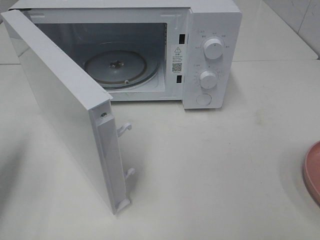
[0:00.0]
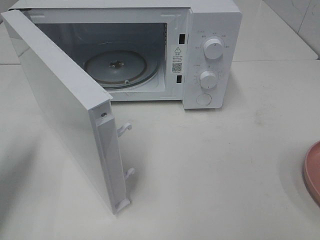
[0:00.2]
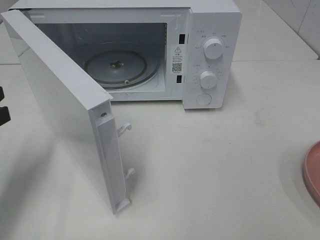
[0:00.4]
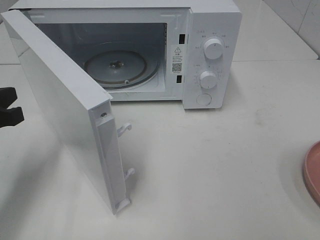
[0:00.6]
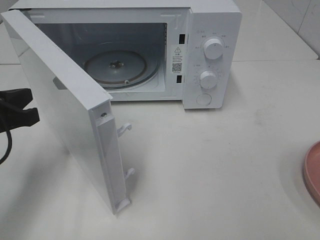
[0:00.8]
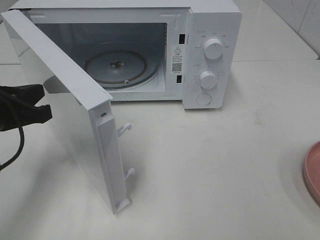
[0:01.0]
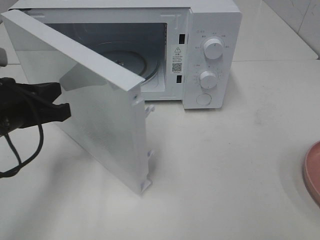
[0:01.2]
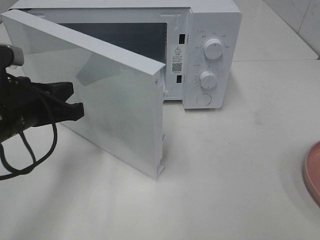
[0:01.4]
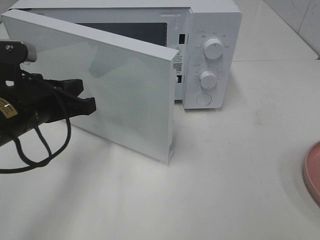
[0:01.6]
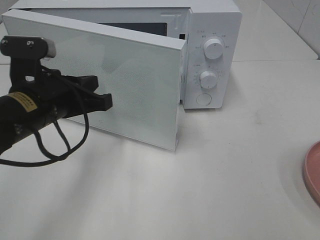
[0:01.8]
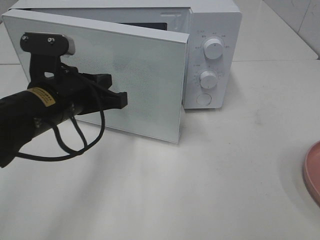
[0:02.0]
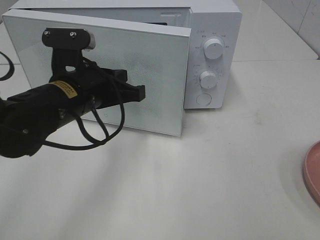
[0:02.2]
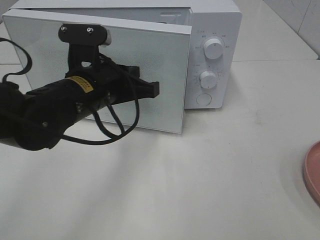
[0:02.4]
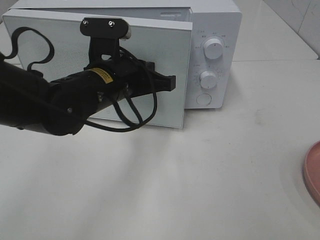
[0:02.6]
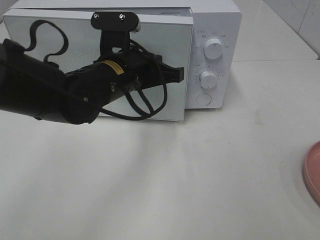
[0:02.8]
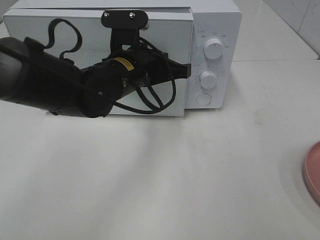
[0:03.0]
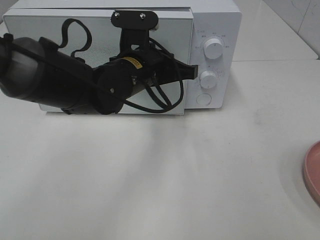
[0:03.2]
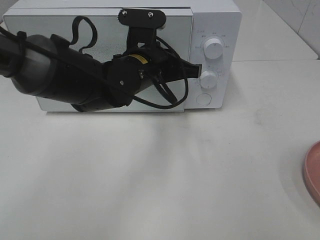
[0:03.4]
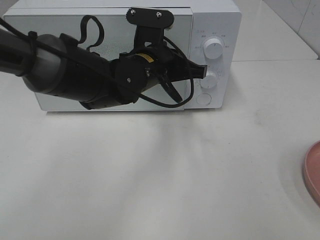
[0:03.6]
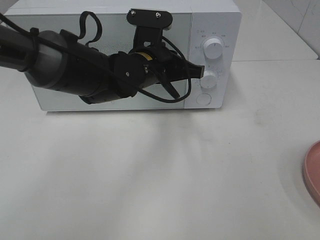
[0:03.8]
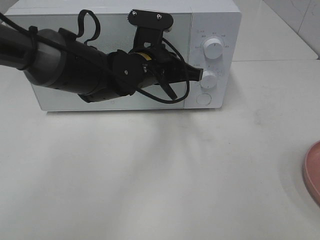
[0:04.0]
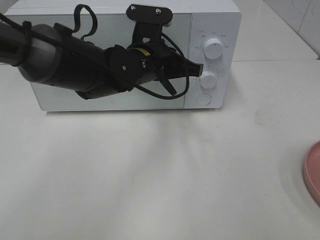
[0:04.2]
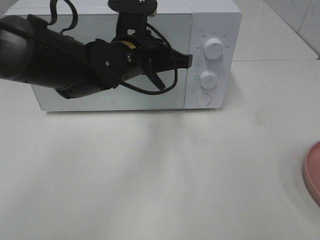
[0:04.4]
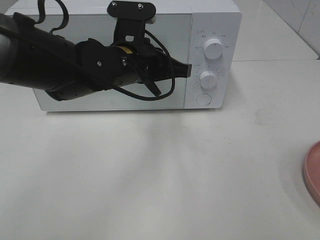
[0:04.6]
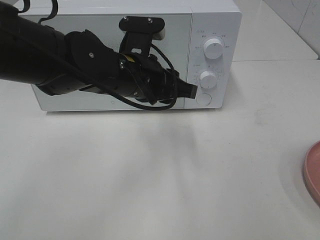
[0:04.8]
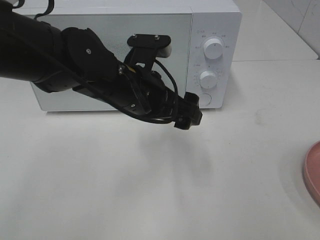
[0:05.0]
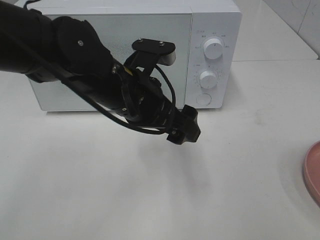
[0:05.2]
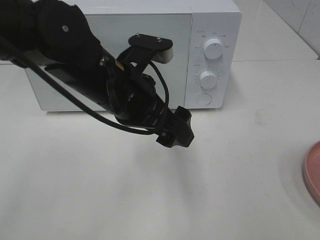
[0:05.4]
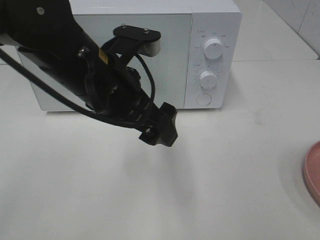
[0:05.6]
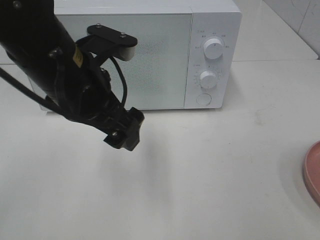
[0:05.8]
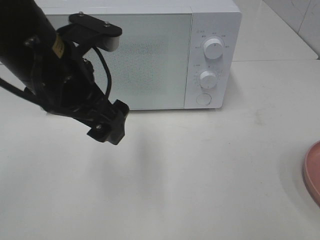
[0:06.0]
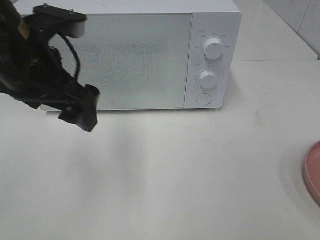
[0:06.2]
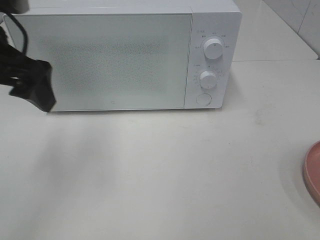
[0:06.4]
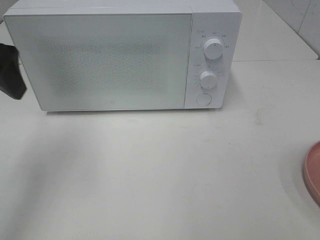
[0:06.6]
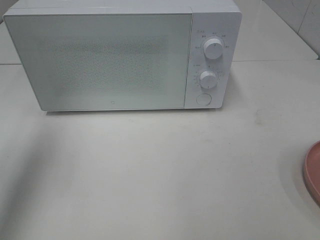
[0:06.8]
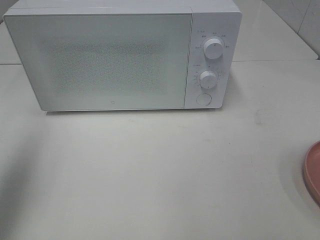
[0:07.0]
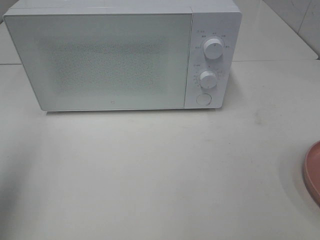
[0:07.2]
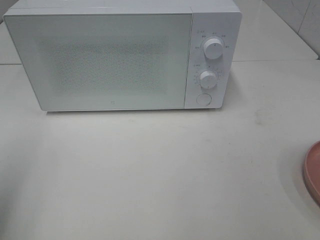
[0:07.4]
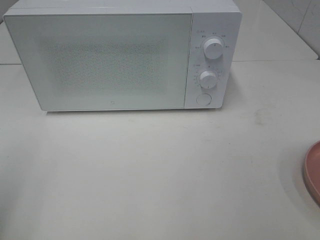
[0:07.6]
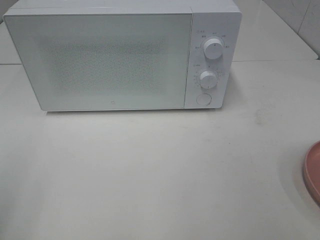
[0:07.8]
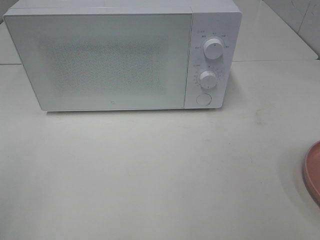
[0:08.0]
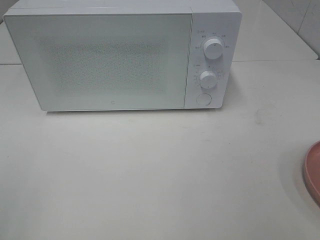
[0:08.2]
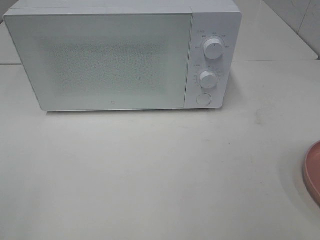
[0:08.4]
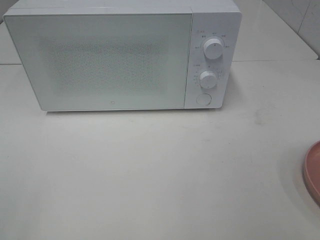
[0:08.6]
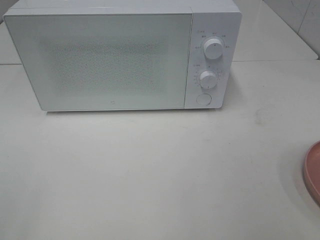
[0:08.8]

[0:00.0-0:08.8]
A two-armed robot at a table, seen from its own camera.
Task of the whole recording: Heat the burger.
Step, 0:00.0 to 0:04.4: Left hand: close the microwave door.
0:00.0 to 0:01.4: The left gripper is displaced to the right by about 15 cm.
0:01.4 to 0:03.0: The left gripper moves to the right and forward, roughly 20 cm.
0:03.0 to 0:04.4: There are only small adjustments of the grippers.
0:04.4 to 0:05.8: The left gripper shifts roughly 10 cm backward and to the left, and opens up.
0:05.8 to 0:07.4: The left gripper travels to the left and backward by about 25 cm.
0:07.4 to 0:08.8: The left gripper moves backward, about 10 cm.

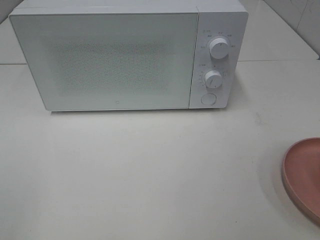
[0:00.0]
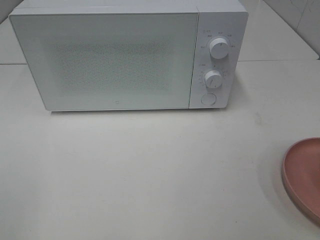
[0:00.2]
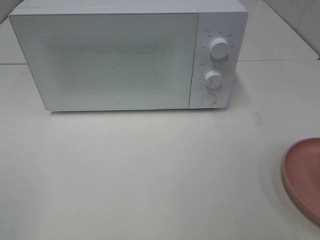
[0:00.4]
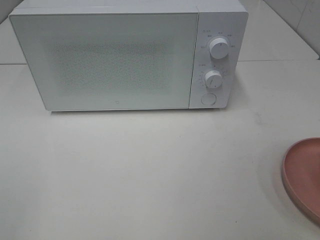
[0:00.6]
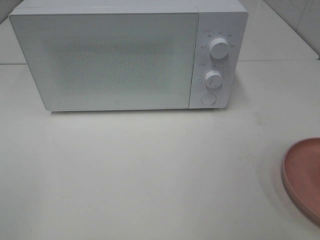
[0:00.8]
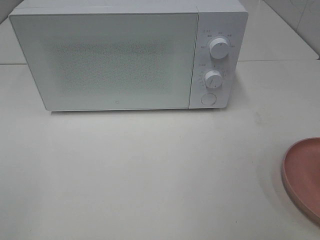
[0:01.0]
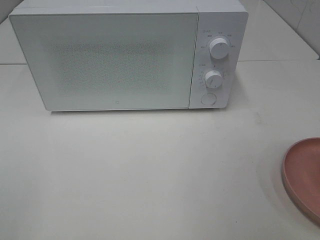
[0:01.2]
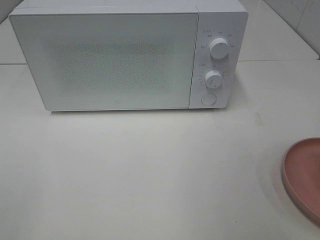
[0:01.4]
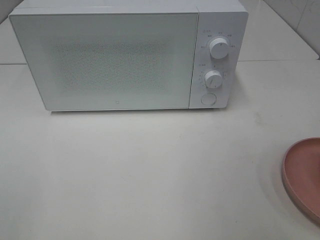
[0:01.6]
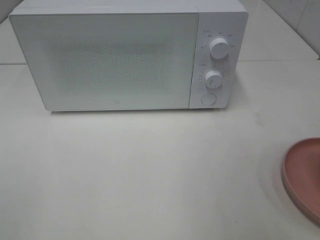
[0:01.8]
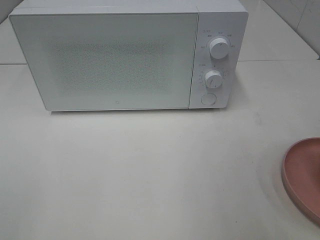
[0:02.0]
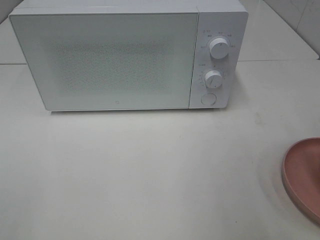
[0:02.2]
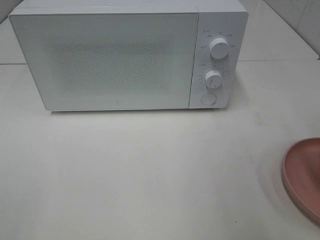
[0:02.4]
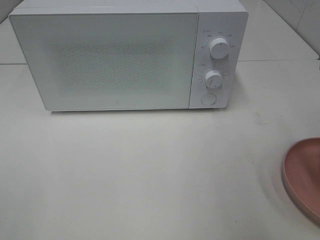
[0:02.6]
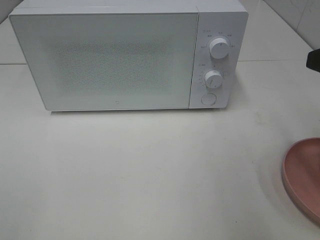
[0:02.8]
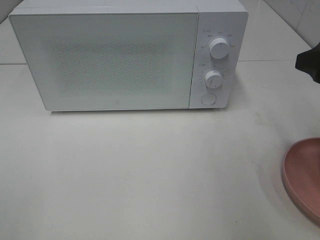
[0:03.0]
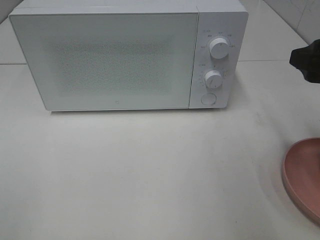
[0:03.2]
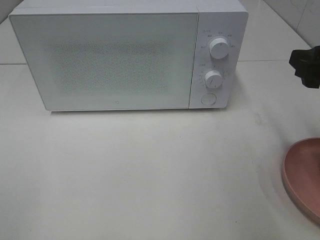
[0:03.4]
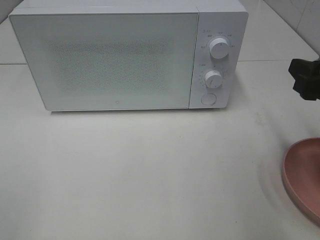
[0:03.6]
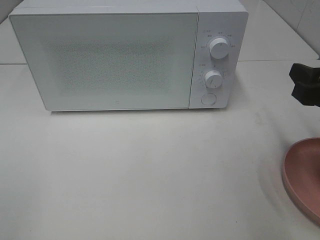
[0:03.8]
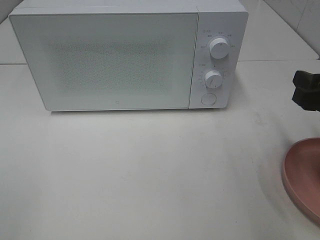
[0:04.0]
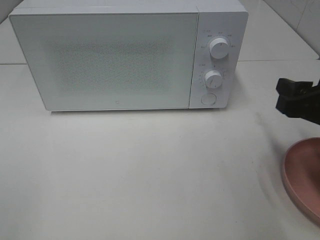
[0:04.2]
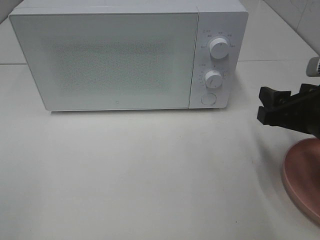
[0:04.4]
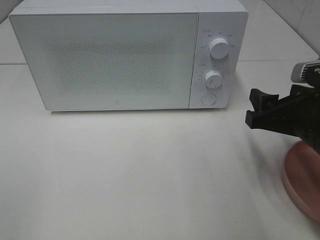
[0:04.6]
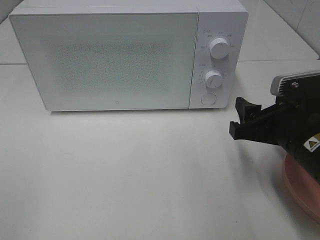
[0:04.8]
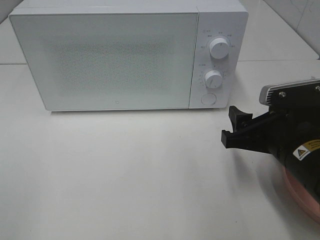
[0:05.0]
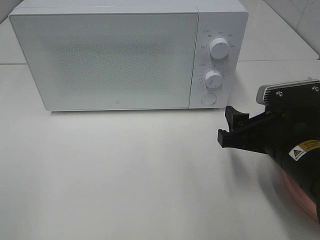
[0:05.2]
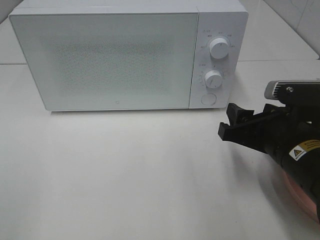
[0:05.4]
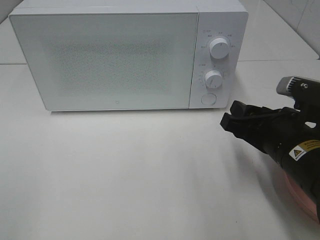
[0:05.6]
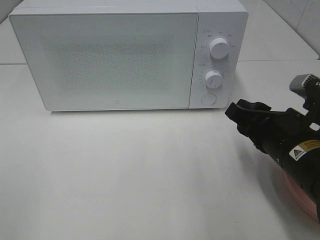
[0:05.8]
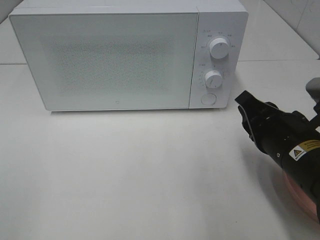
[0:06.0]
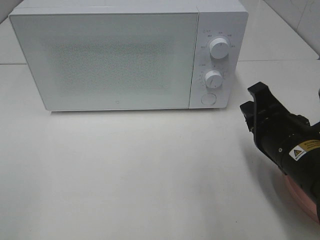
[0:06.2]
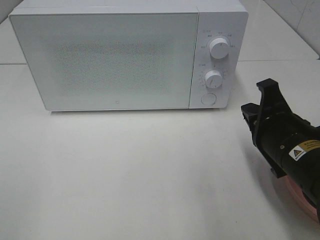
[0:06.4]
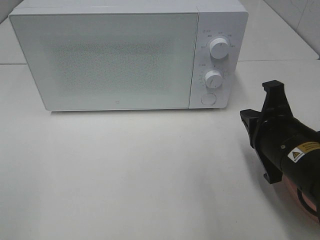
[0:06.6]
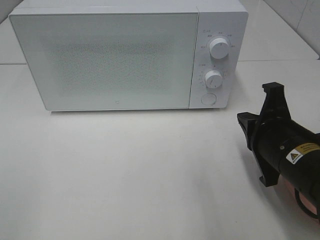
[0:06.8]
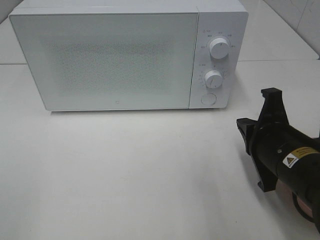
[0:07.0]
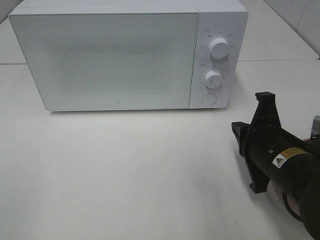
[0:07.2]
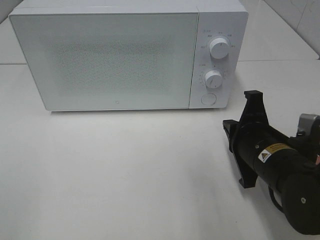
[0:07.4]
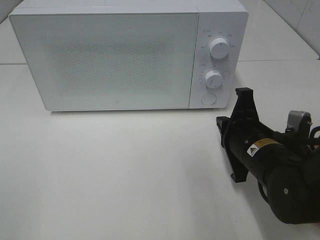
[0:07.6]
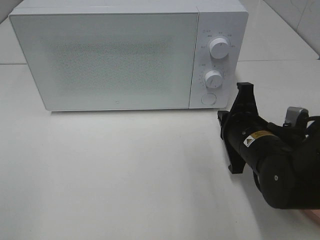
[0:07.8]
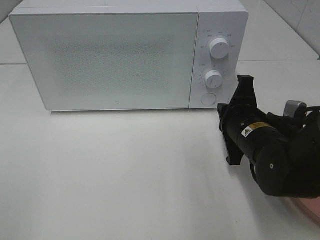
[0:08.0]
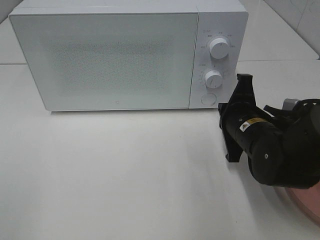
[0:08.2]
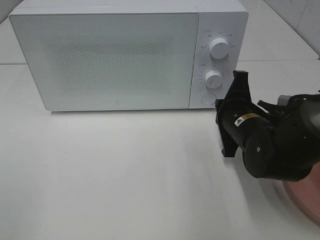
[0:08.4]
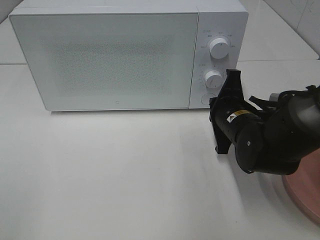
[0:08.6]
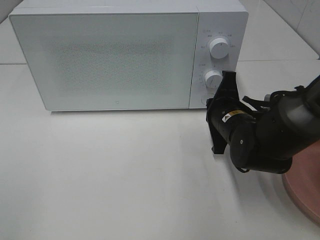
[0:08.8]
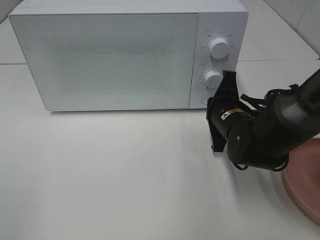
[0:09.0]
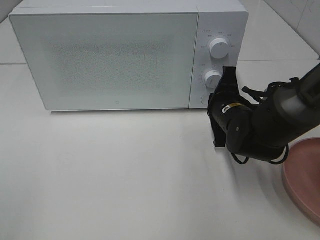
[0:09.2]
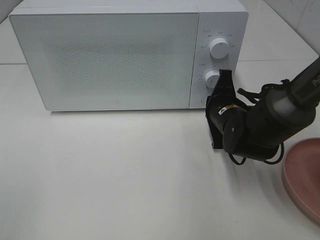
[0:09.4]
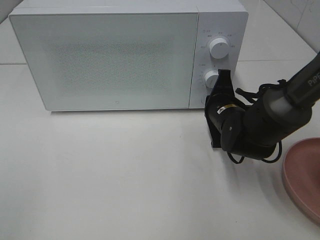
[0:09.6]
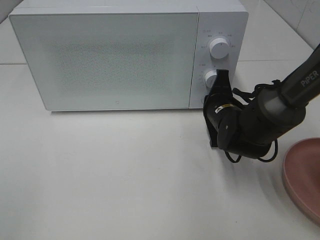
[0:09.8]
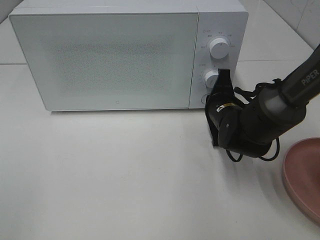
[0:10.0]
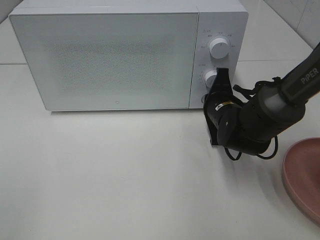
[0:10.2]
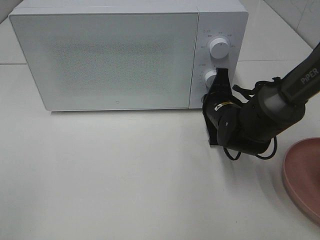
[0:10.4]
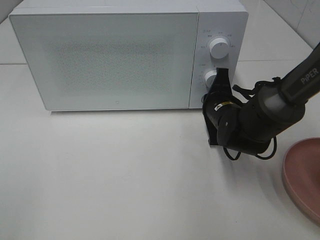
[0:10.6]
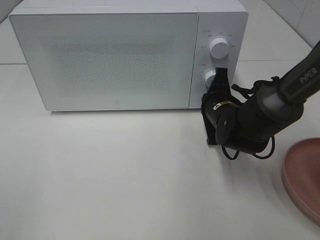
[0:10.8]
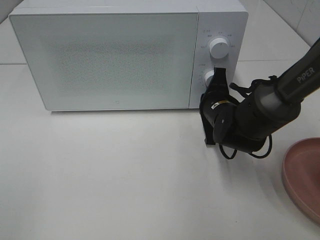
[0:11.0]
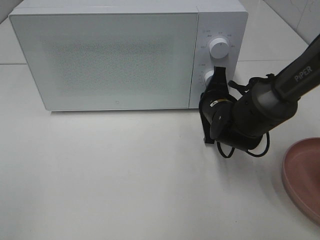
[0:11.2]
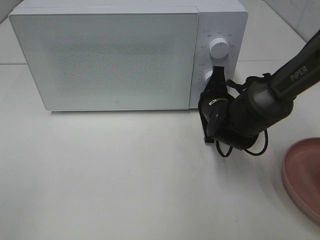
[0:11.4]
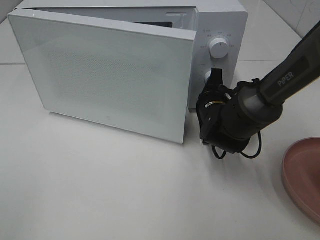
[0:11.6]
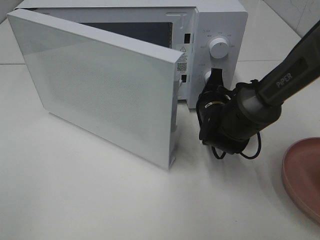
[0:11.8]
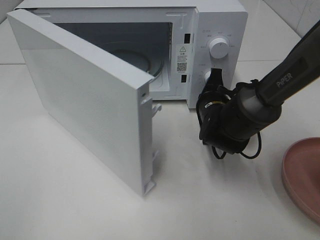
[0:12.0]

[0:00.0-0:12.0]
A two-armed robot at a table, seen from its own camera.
Task of the whole recording: Heat the burger.
0:01.6 to 0:03.0: The right gripper travels forward by roughly 15 cm.
0:03.0 to 0:04.4: The right gripper is displaced downward by about 10 cm.
0:04.4 to 0:06.0: The right gripper goes approximately 5 cm to the left, and closes up.
0:06.0 to 0:07.6: The right gripper changes place by approximately 5 cm.
0:07.6 to 0:09.0: The right gripper shifts roughly 10 cm forward.
0:09.0 to 0:10.4: The grippers stay close to where they were, moving slightly.

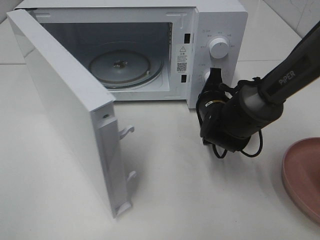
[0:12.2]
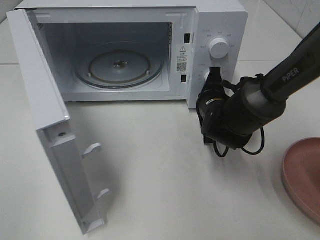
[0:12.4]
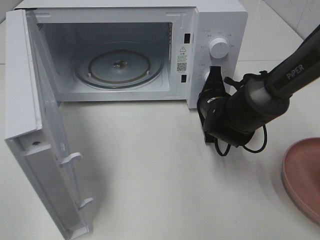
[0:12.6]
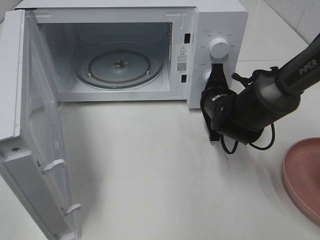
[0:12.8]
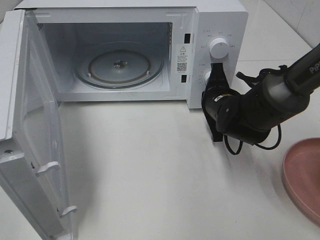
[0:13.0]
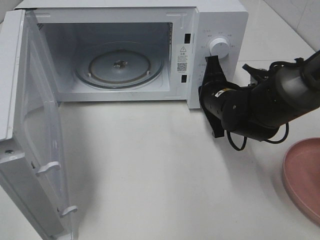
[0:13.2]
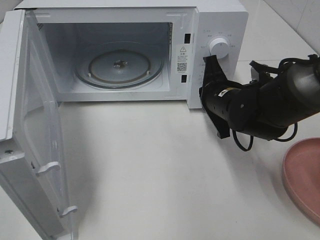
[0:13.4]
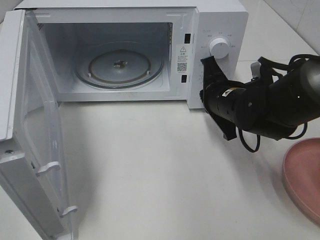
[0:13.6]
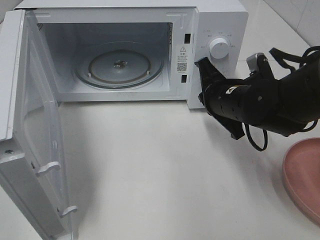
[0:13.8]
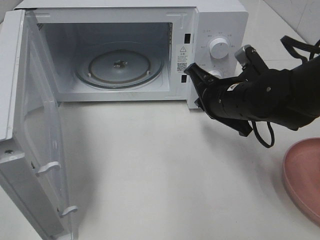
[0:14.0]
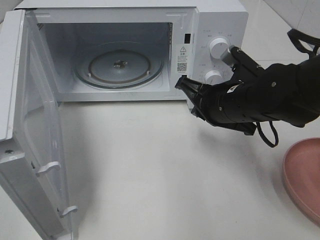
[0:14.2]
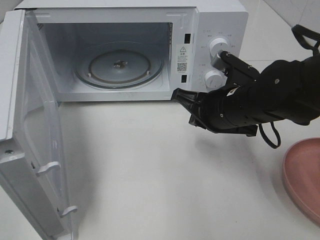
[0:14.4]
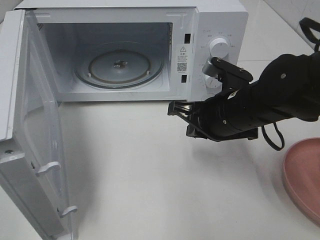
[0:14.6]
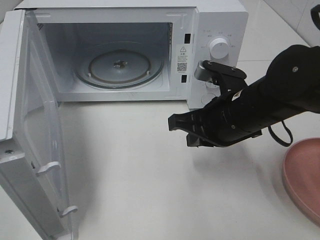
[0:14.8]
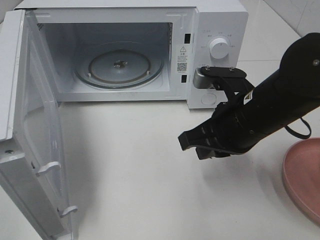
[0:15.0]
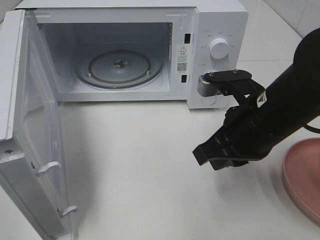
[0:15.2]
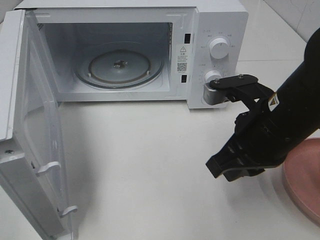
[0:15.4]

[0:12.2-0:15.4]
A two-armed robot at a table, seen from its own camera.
Task of the whole recording: Heat the burger.
0:12.2 to 0:13.8: The right gripper heads upward, covering roughly 5 cm.
0:13.8 to 0:15.4: The right gripper goes about 10 cm backward and upward.
